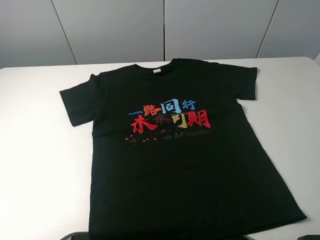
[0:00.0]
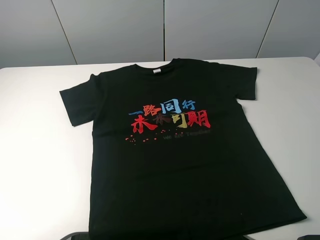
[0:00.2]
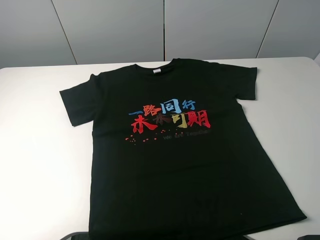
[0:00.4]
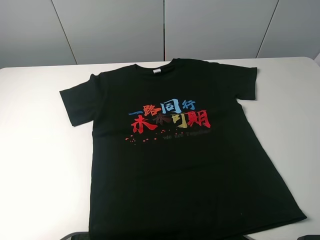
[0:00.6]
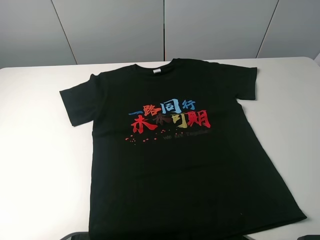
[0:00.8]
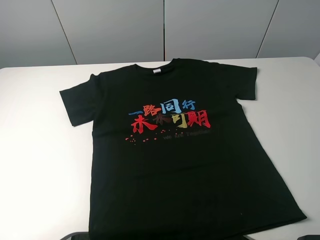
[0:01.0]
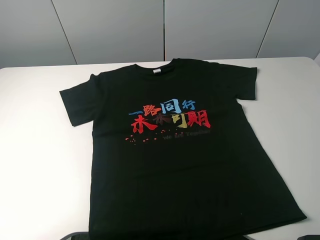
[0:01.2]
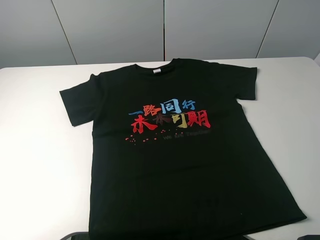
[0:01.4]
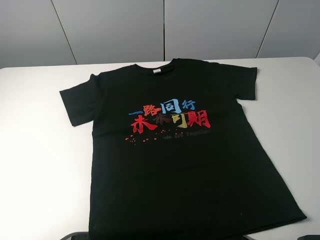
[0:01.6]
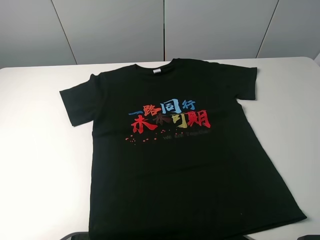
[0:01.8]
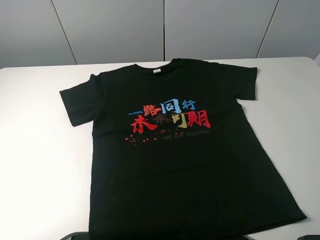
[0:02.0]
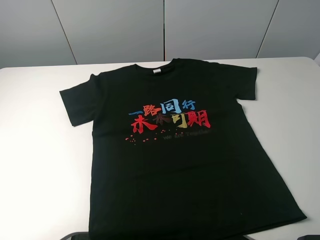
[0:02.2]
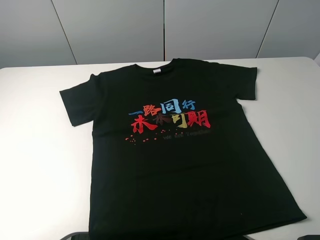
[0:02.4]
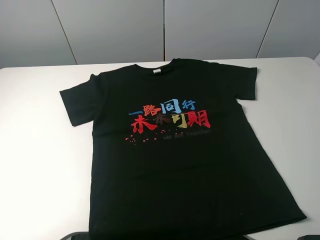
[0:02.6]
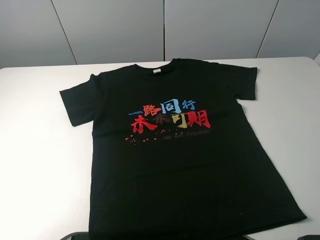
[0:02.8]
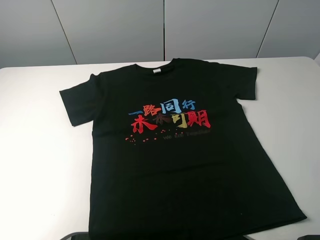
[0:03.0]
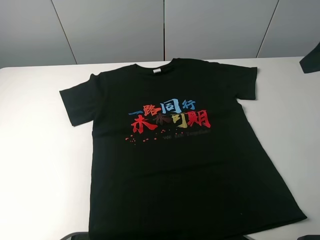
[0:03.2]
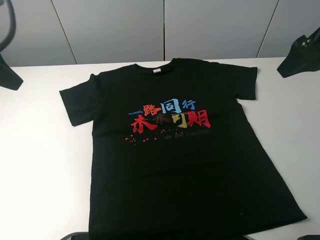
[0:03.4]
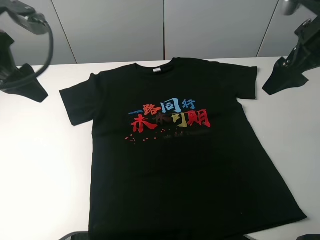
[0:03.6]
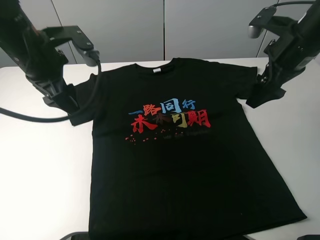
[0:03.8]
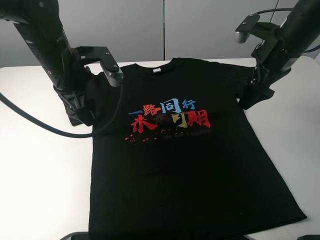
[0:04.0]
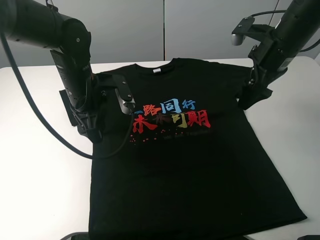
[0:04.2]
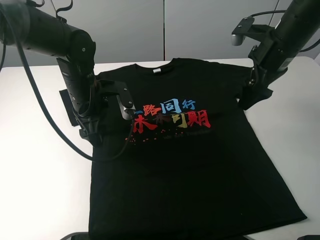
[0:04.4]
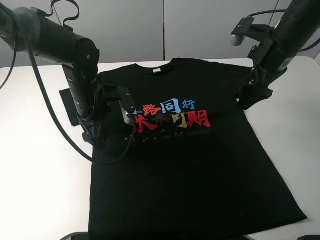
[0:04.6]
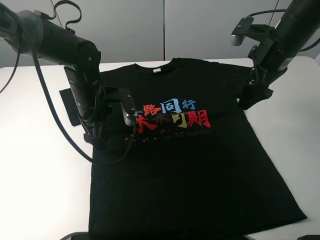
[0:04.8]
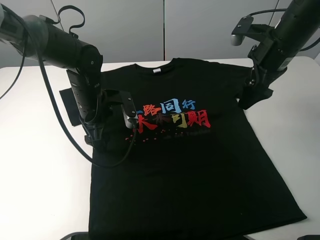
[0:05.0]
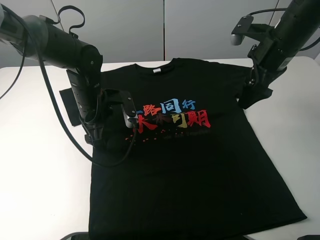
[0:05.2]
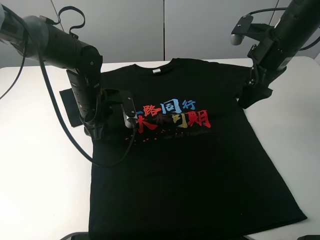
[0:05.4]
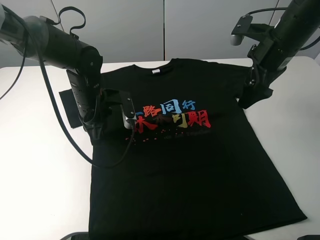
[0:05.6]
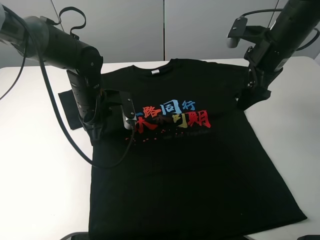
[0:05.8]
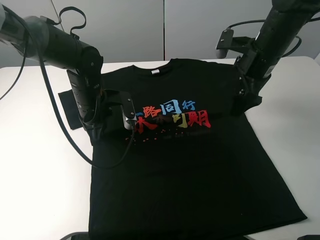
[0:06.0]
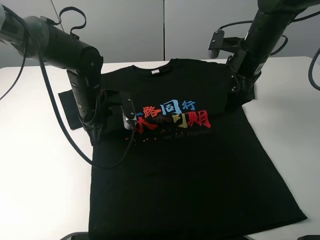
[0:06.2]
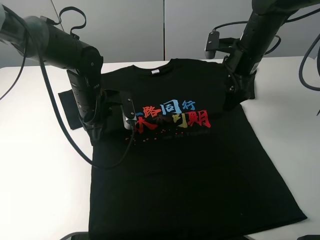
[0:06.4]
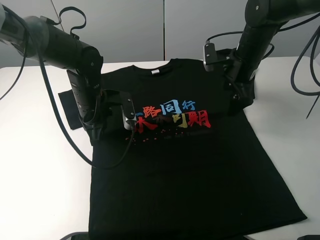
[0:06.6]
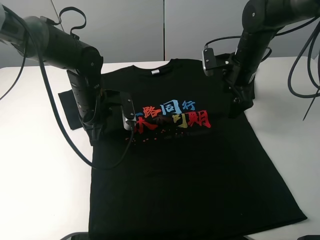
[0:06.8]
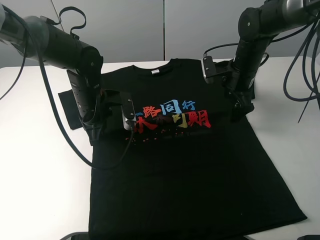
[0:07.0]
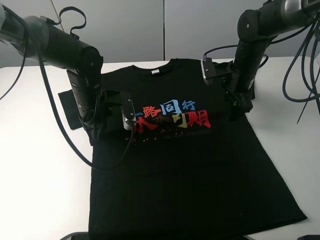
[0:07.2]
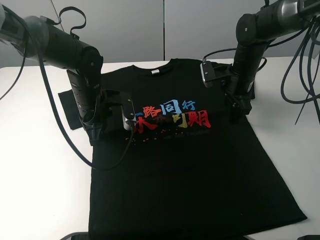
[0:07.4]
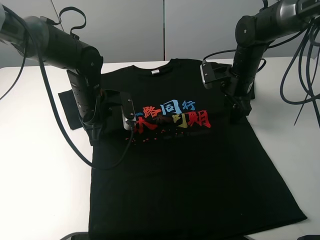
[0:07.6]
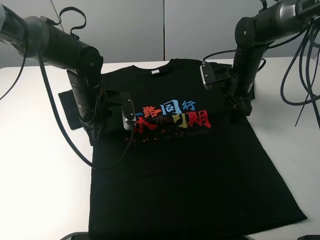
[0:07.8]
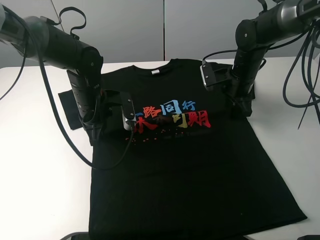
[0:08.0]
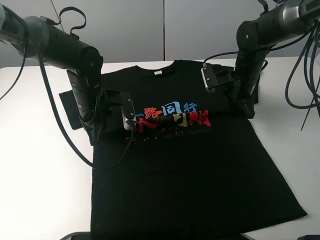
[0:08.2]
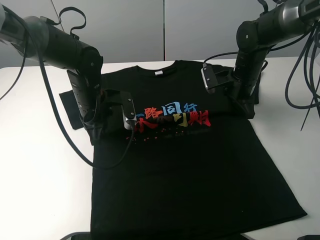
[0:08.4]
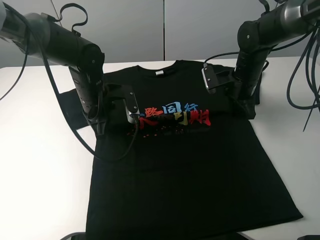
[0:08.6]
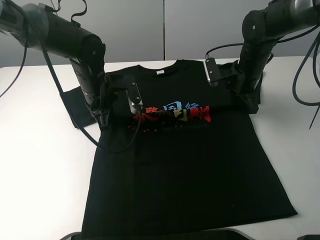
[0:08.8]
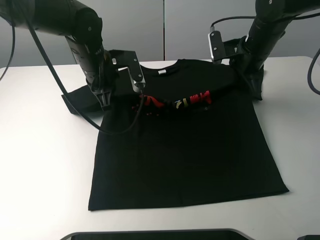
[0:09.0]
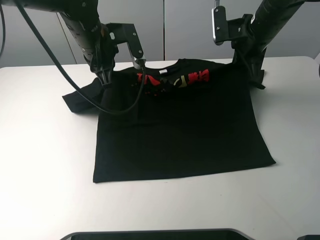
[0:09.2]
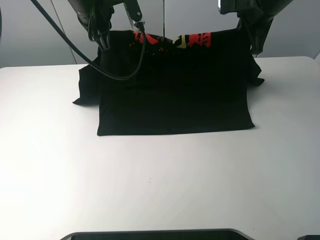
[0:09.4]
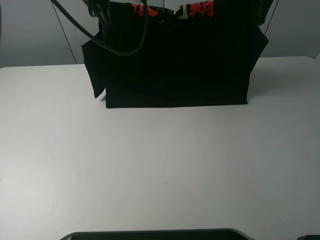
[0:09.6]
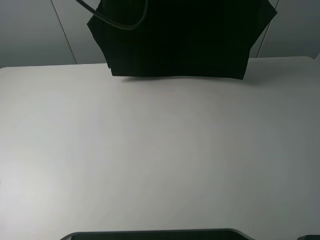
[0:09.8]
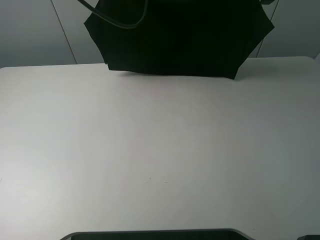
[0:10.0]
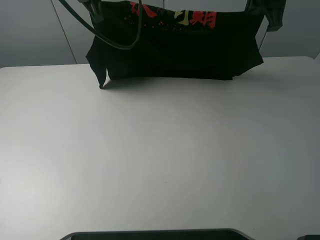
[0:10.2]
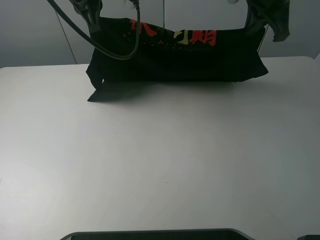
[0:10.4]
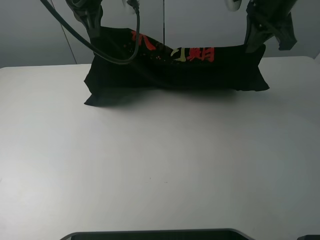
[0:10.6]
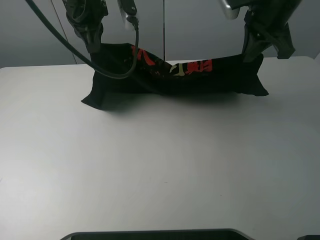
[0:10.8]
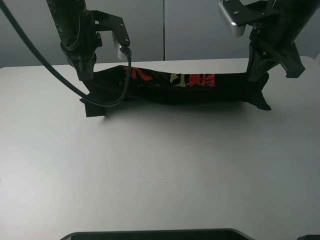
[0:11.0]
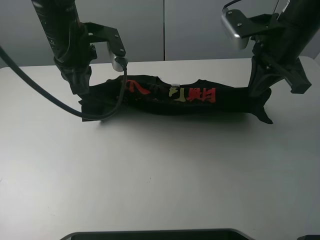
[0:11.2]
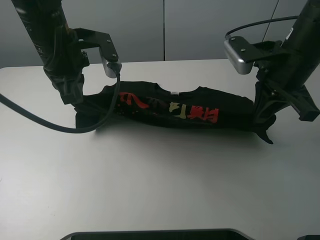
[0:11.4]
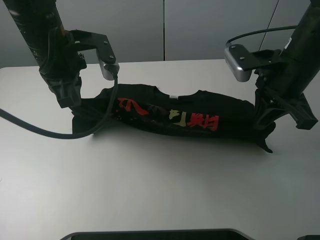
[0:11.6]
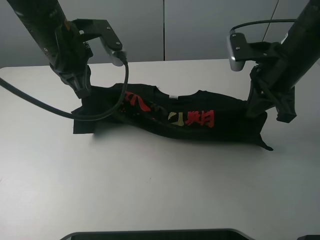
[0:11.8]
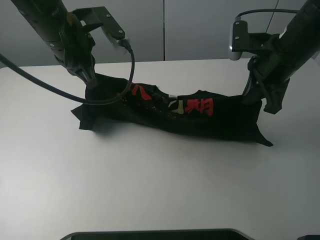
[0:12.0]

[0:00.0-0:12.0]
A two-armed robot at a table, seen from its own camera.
Task of the whole recording: fold the clothes on the table.
Step, 0.0 to 6.8 s: Lift the black T-shirt with the left gripper.
0.0 to 1.6 s: The two grippers keep their place.
3.0 to 4.4 s: The left gripper is displaced downward, forward and to the right by about 35 cm. Meanwhile the right gripper travels forward and downward by approximately 20 cm.
4.4 to 6.0 s: The left gripper closes up.
6.0 to 7.6 s: The right gripper moves downward, roughly 10 cm.
7.6 to 9.0 s: The grippers both shift upward by about 10 cm. The right gripper closes its fingers.
9.0 to 10.4 s: Both grippers travel together upward, about 15 cm.
10.4 to 12.0 s: The grippers both shift backward and downward by some 10 cm.

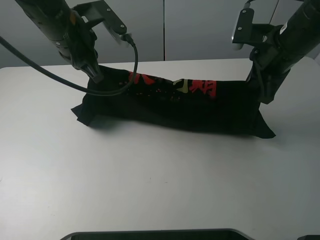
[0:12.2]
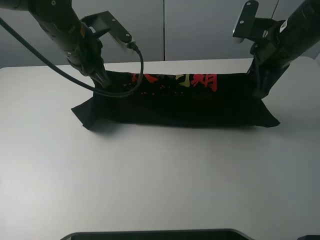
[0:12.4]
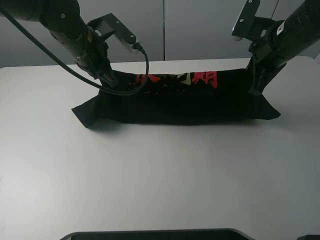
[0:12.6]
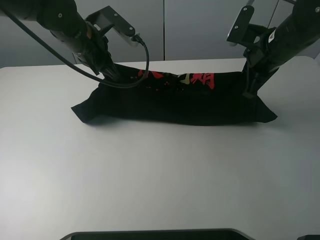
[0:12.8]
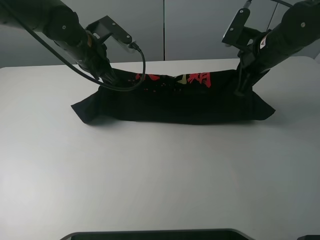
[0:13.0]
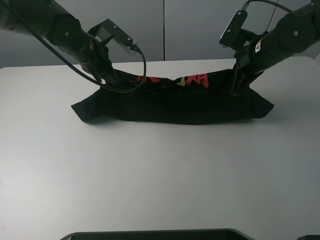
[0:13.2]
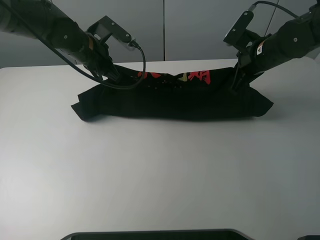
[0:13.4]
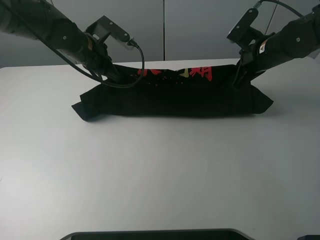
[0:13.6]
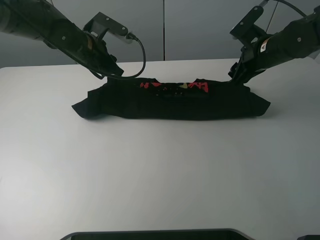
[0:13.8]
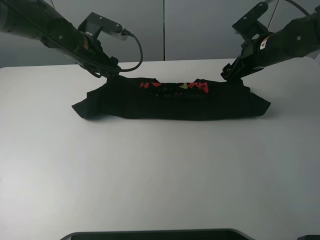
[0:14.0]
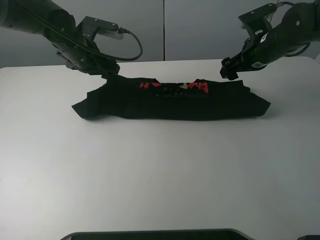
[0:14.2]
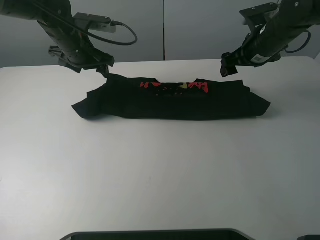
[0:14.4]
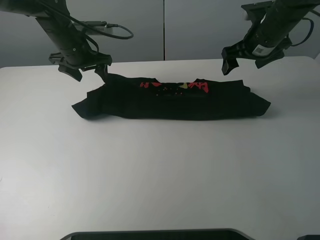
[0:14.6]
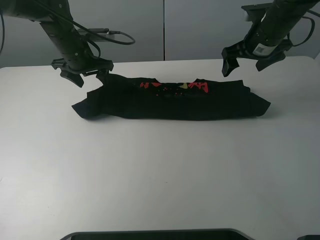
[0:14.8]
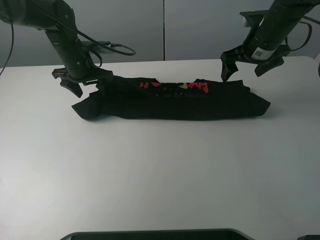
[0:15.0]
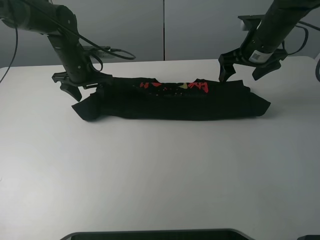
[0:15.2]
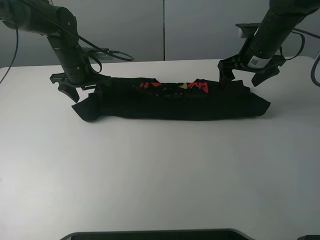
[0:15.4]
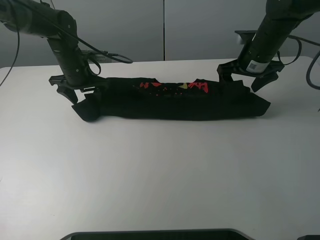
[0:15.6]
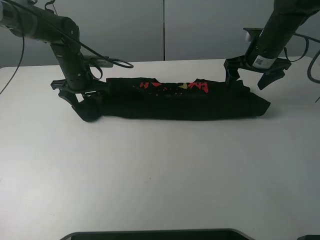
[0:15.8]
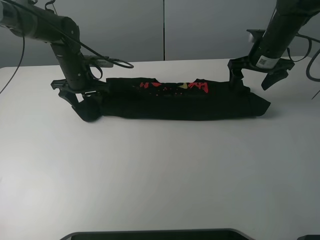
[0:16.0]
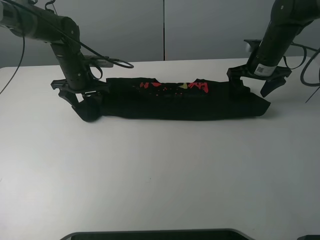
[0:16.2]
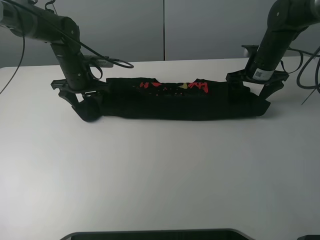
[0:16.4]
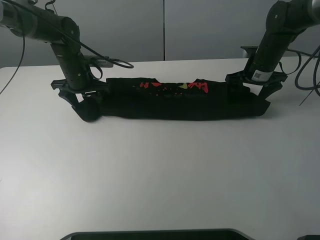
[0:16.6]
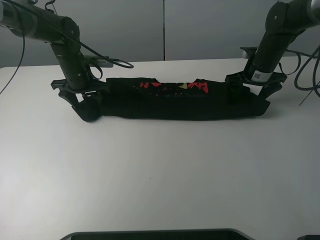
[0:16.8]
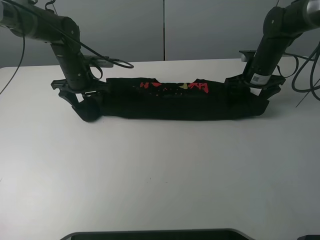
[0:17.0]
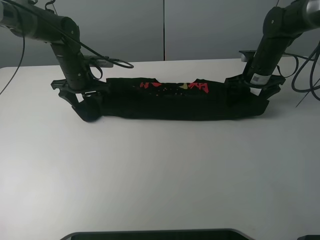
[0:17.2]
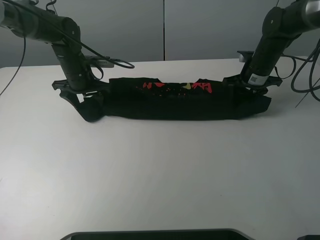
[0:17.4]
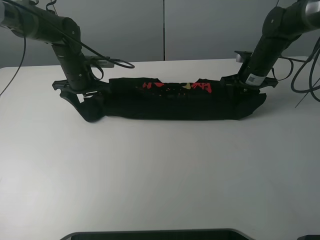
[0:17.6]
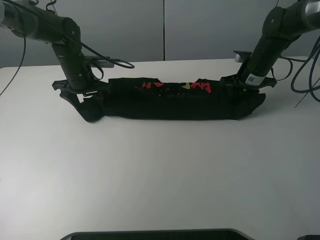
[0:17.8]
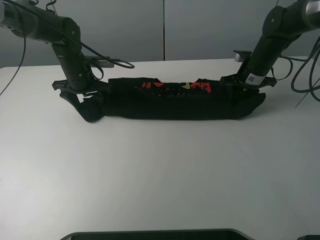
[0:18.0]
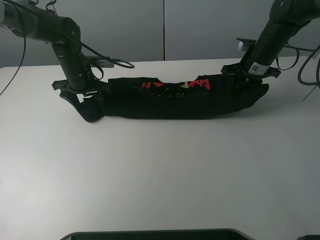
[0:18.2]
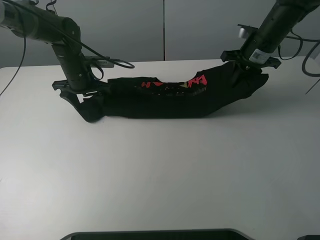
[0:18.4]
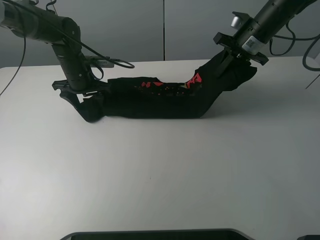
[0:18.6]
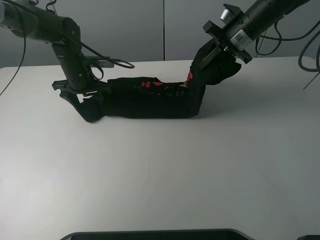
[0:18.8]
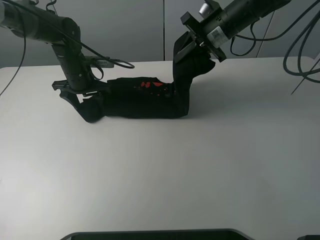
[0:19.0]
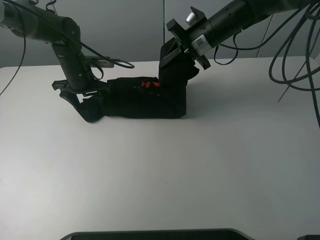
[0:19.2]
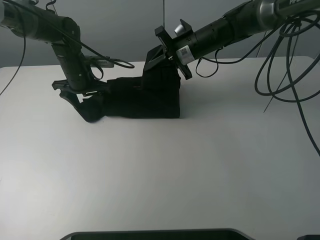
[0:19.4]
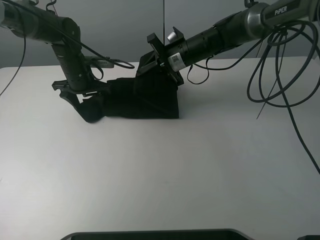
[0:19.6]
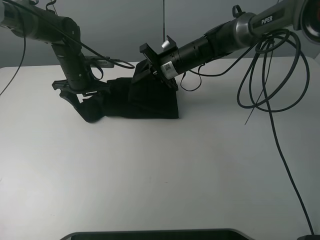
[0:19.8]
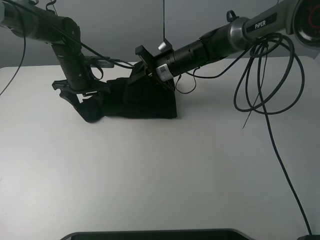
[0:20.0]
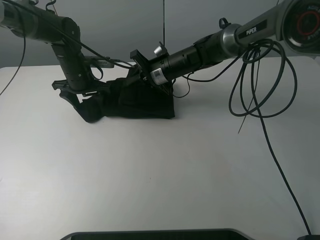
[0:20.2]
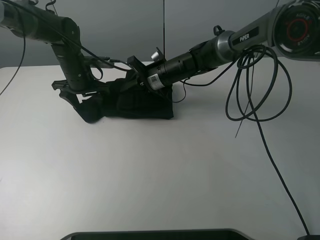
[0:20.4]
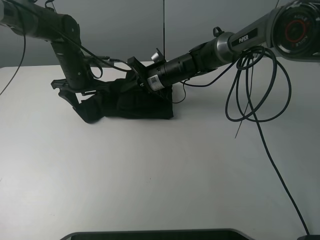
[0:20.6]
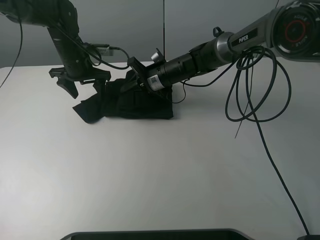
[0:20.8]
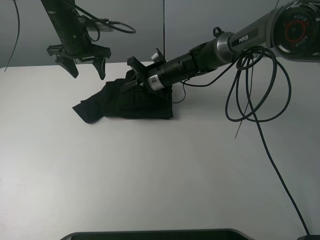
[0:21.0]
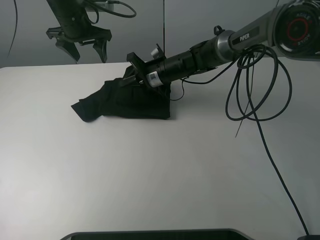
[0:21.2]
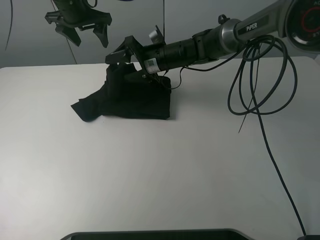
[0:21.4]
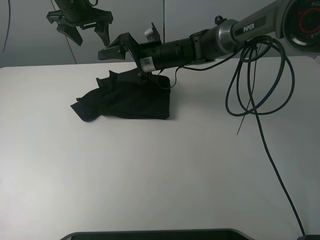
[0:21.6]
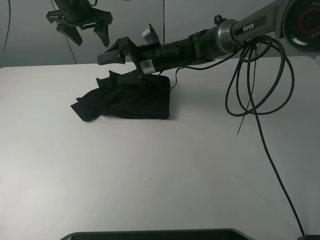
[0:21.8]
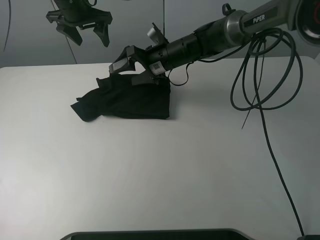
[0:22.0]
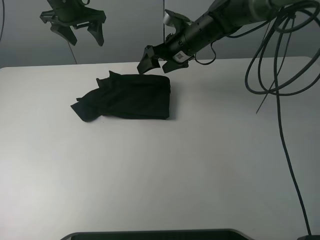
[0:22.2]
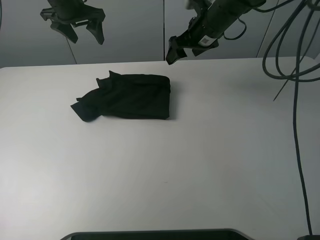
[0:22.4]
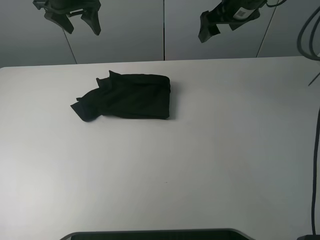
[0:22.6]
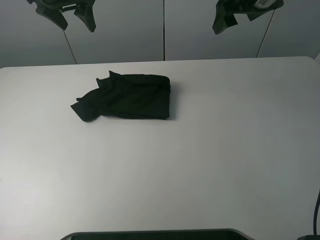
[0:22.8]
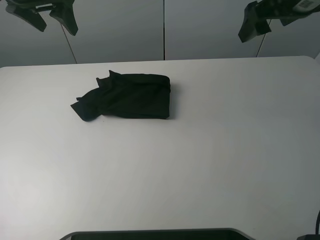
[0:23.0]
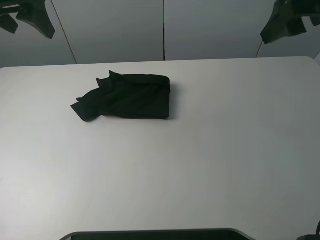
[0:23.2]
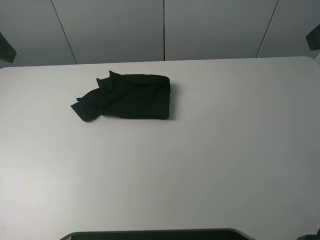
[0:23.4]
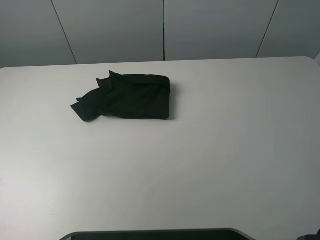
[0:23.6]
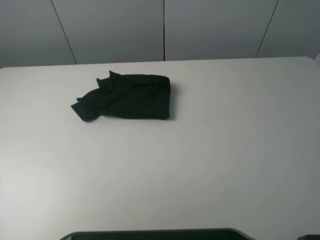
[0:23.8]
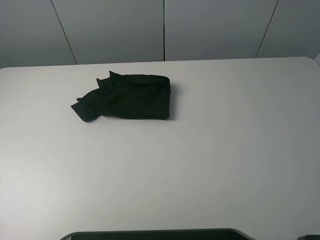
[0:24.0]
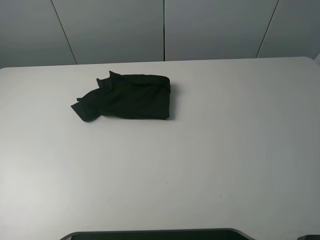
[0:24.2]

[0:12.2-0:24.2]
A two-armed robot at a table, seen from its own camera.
Task of the whole recording: fold the clothes on the table.
Step, 12.2 to 14.4 s: Fold the black T-shirt downward with the left gripper.
Step, 14.6 to 17.6 s: Grasp the black T-shirt with the right gripper.
Step, 17.8 to 21.4 s: Fold the black T-shirt from right to left with right gripper.
12.2 to 13.8 s: The left gripper goes about 10 cm downward and forward, and opens up, while the right gripper is displaced forward and downward by approximately 10 cm, and opens.
13.8 to 15.2 s: The left gripper ends up roughly 5 cm from where it was.
15.2 to 16.6 s: The right gripper goes approximately 5 cm downward.
16.6 to 18.2 s: The right gripper closes its fingers.
18.2 to 19.8 s: The right gripper travels to the left by some 20 cm.
19.8 to 21.2 s: The left gripper is displaced upward by roughly 10 cm.
21.2 to 22.6 s: The left gripper shifts about 5 cm upward, while the right gripper heads upward and to the right, covering about 25 cm, and opens its fingers.
22.6 to 24.2 s: The grippers both shift backward by approximately 40 cm.
